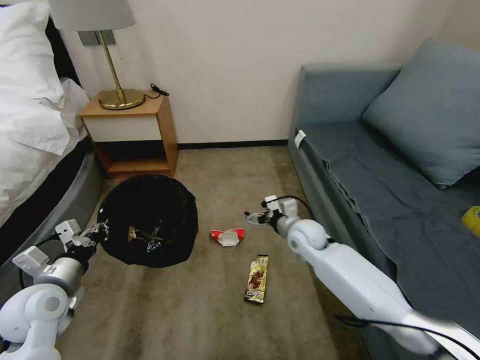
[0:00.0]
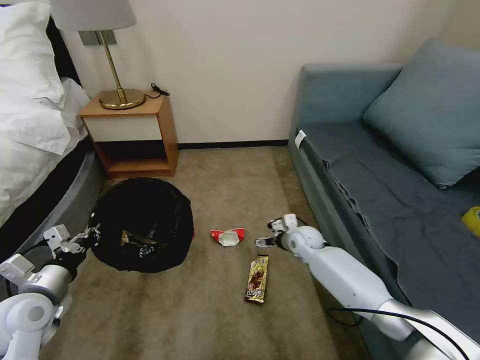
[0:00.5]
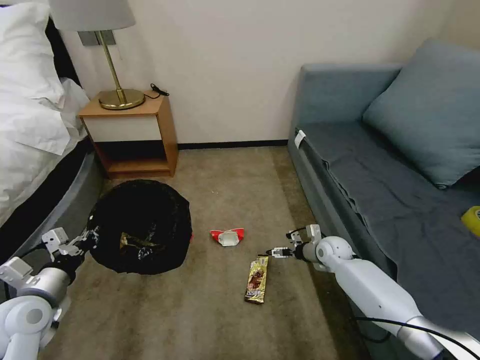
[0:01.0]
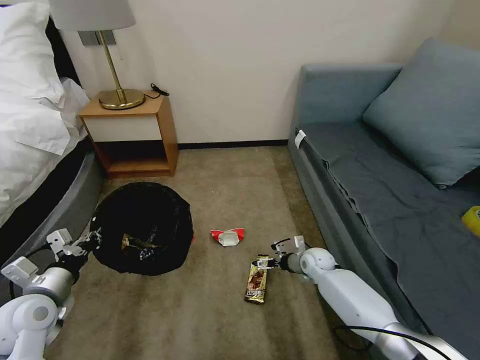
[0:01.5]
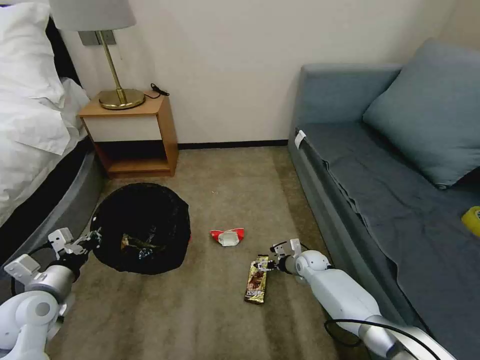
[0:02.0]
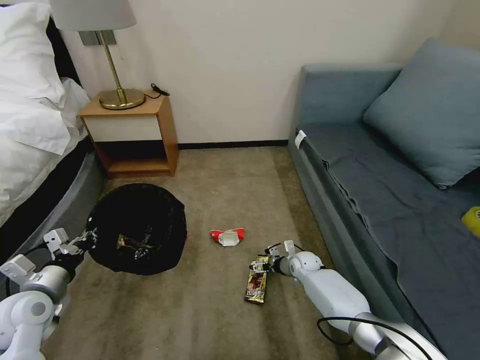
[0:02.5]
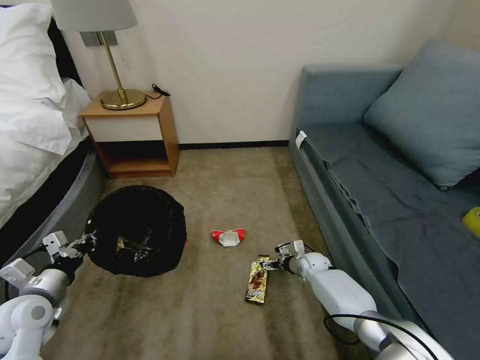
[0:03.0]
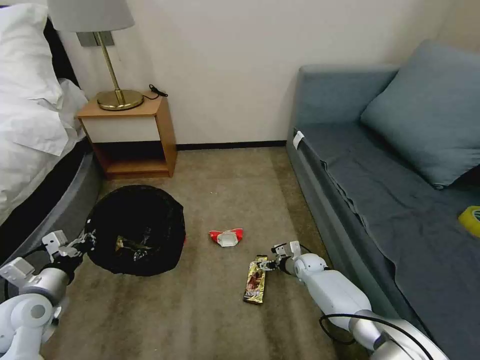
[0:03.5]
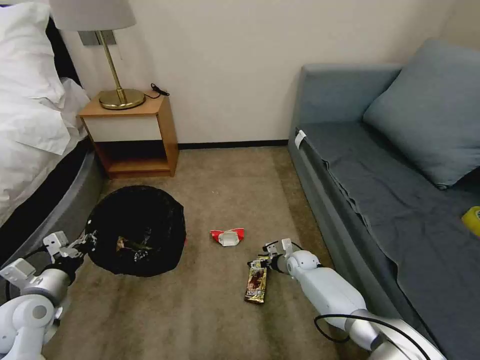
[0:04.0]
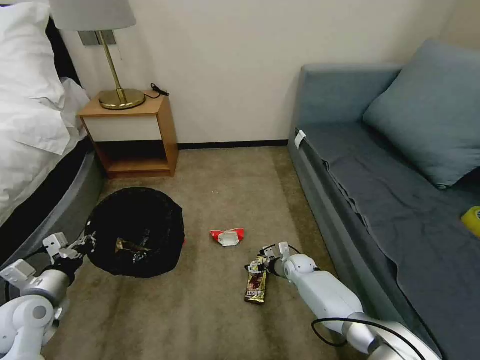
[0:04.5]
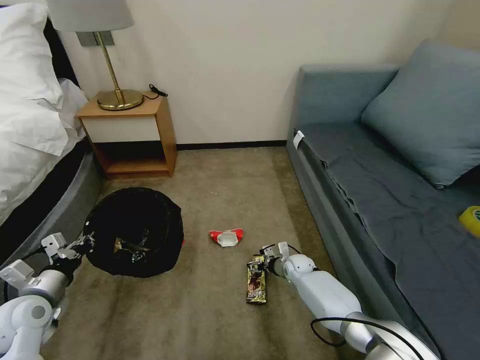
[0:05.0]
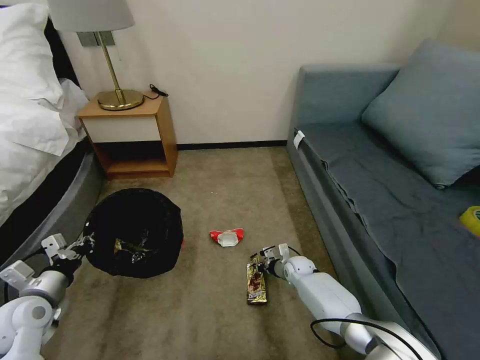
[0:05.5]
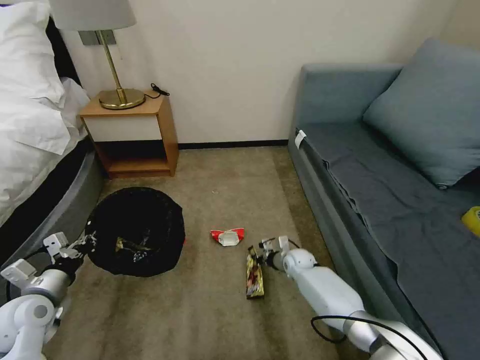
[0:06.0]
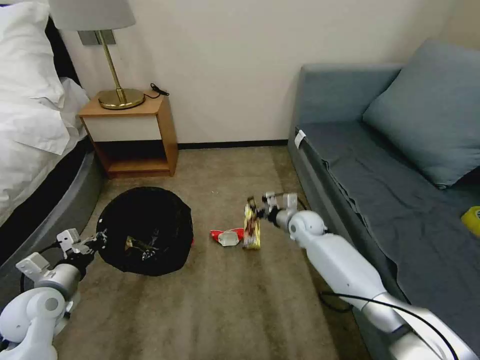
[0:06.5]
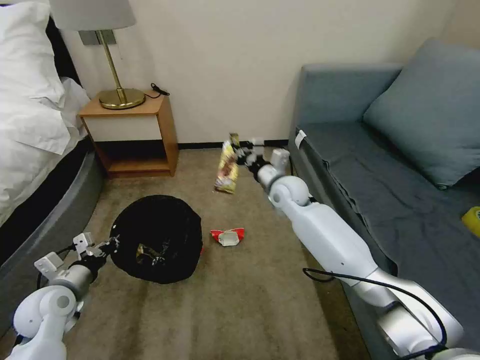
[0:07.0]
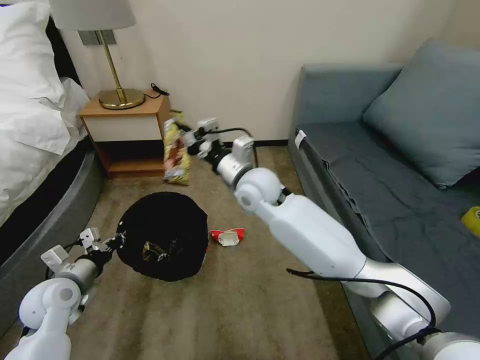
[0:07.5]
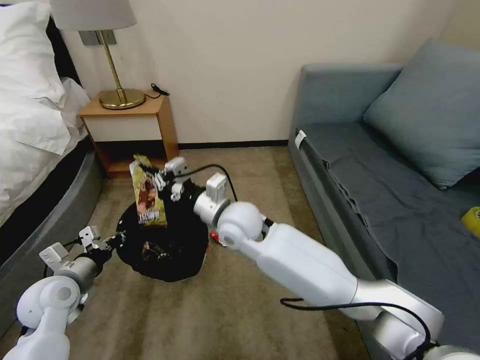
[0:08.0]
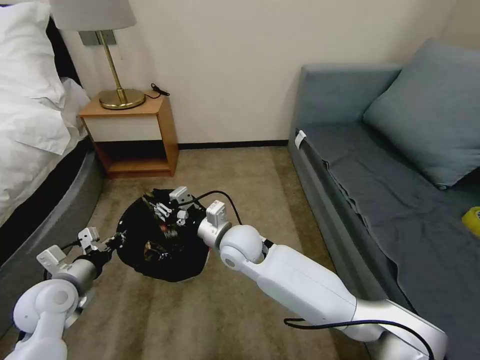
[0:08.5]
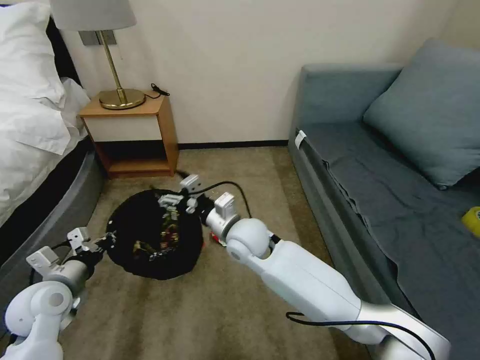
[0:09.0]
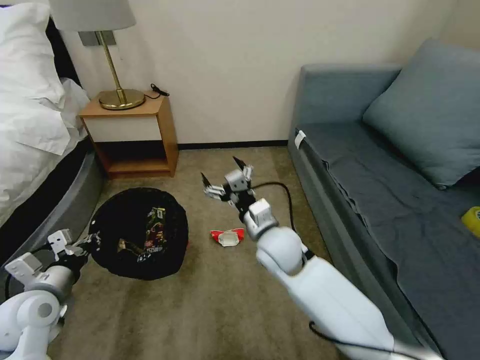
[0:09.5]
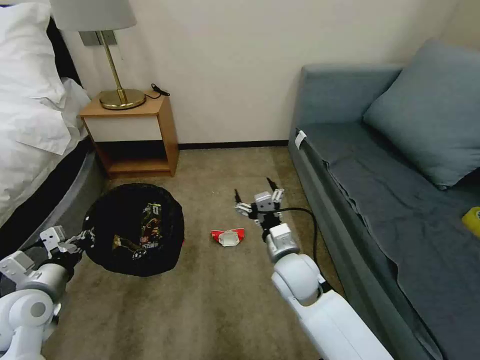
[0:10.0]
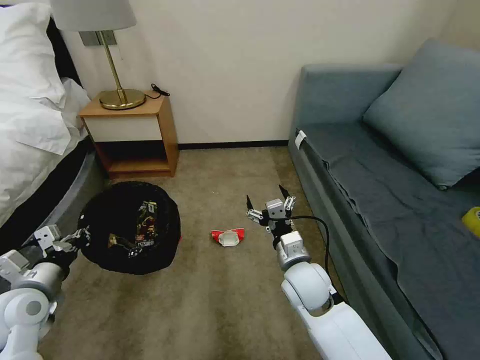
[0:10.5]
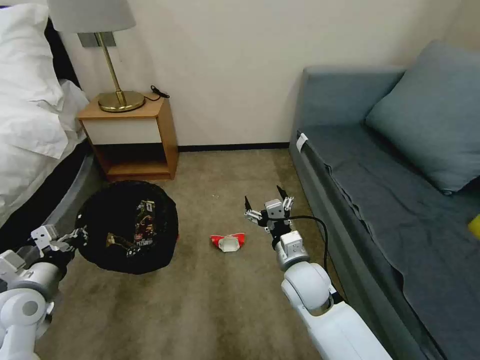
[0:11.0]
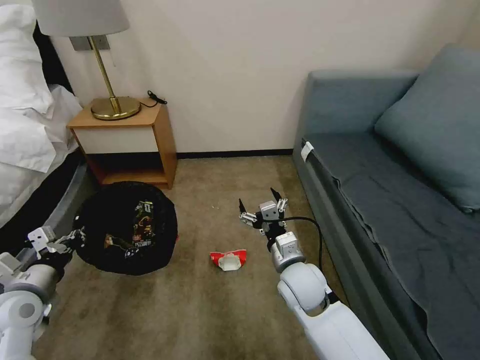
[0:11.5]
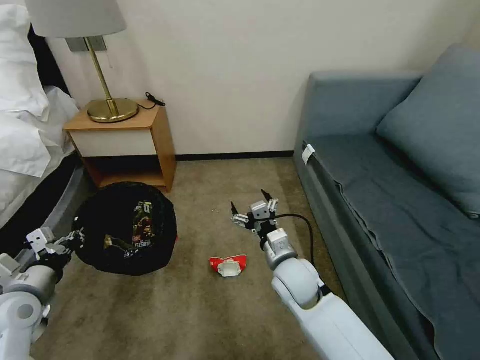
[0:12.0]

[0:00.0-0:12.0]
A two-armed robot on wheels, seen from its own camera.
Task of the whole recording: Pick up the trash bin, then pick up the garbage on the floor and place it into the trash bin.
0:00.0 to 0:02.0: The right gripper goes about 20 cm downward.
0:02.0 to 0:04.0: The grippers stay close to where they were, moving slightly.
0:04.0 to 0:06.0: The right gripper closes up.
0:06.0 to 0:08.0: The right gripper heads upward and to the left, covering about 35 cm, while the left gripper ends up approximately 5 cm from where it was.
0:08.0 to 0:10.0: The right gripper travels to the right, downward and backward by roughly 15 cm, and opens its fingers, while the left gripper changes place by approximately 5 cm.

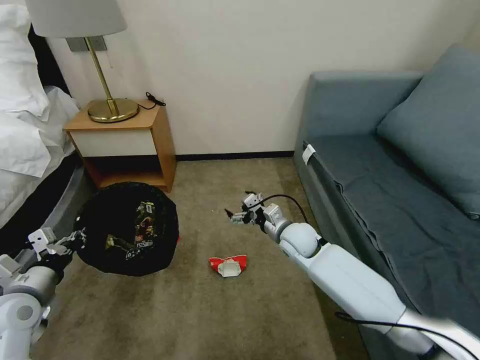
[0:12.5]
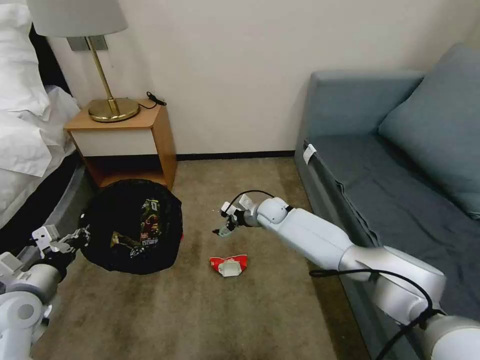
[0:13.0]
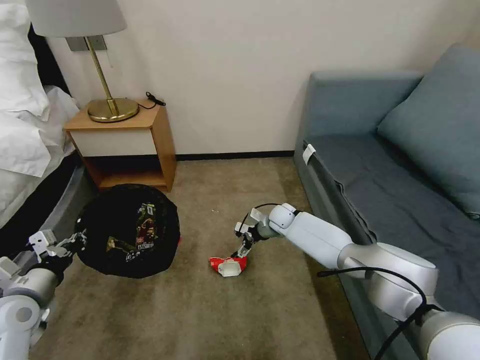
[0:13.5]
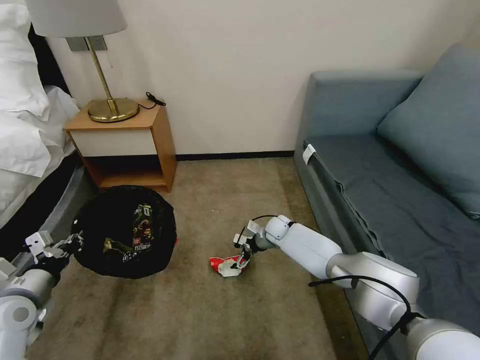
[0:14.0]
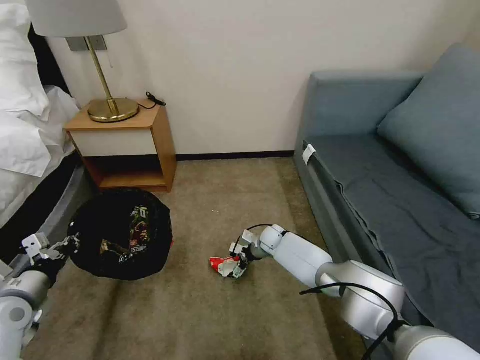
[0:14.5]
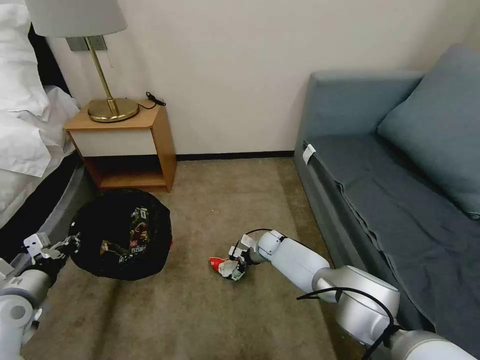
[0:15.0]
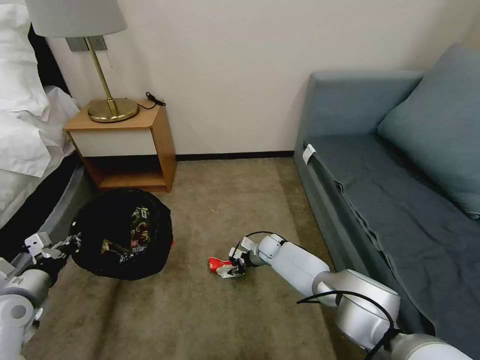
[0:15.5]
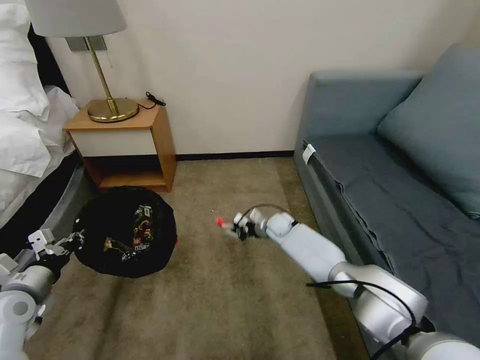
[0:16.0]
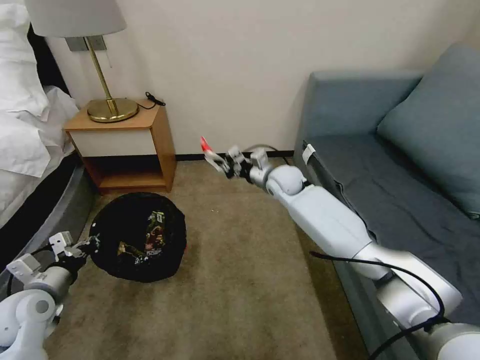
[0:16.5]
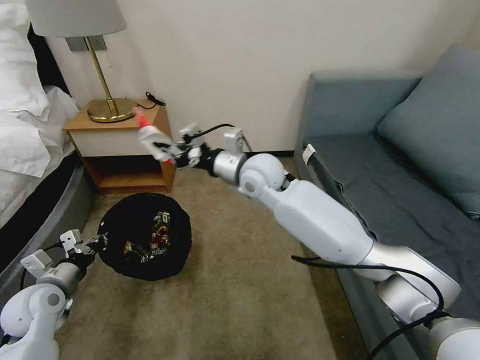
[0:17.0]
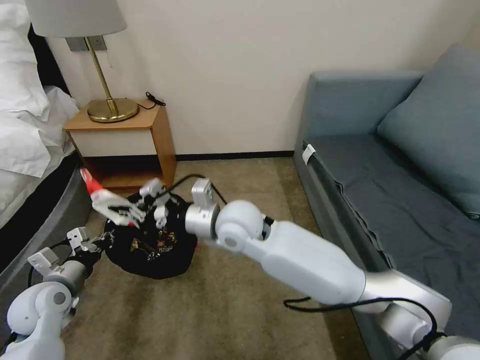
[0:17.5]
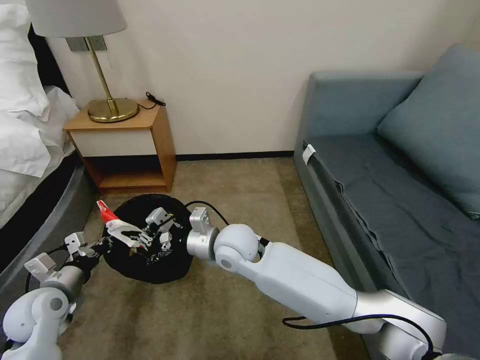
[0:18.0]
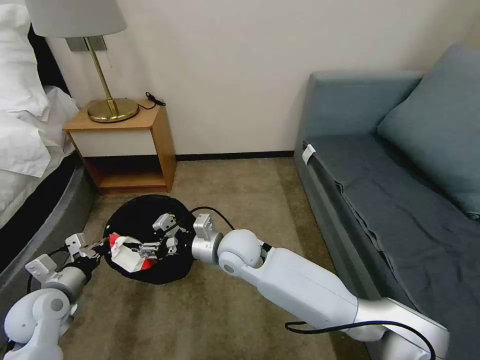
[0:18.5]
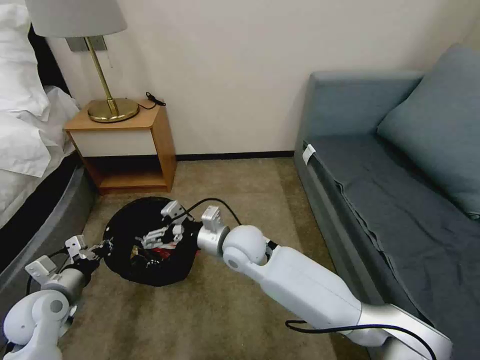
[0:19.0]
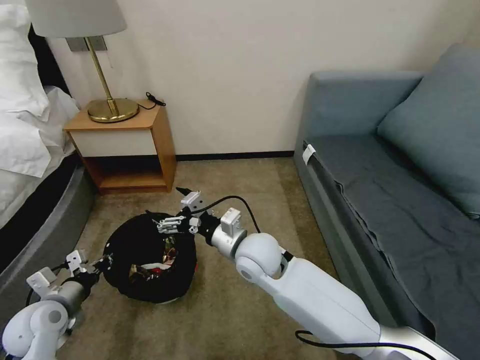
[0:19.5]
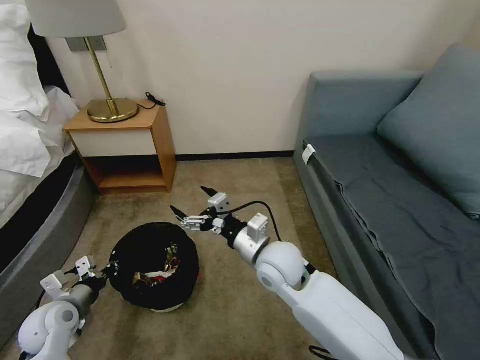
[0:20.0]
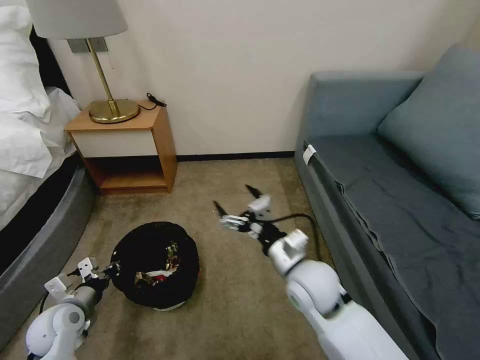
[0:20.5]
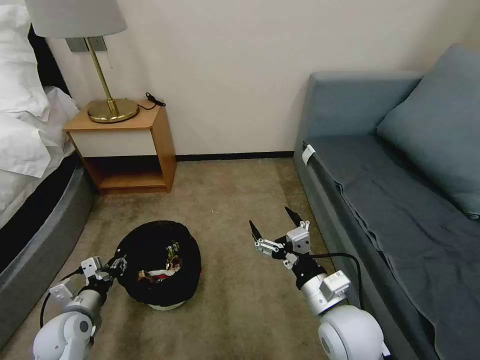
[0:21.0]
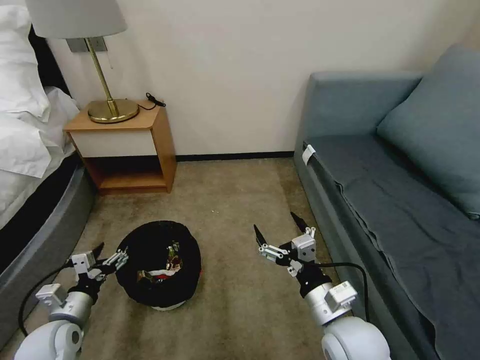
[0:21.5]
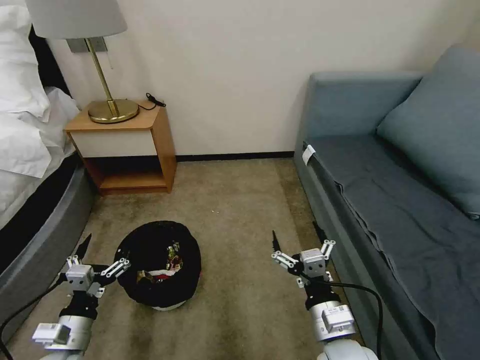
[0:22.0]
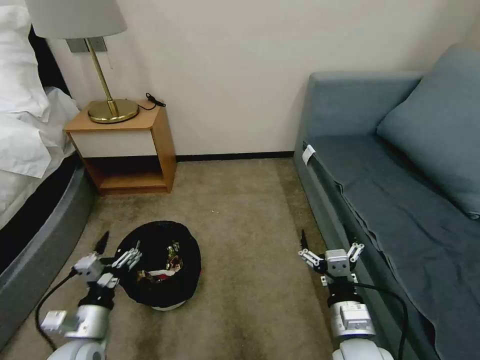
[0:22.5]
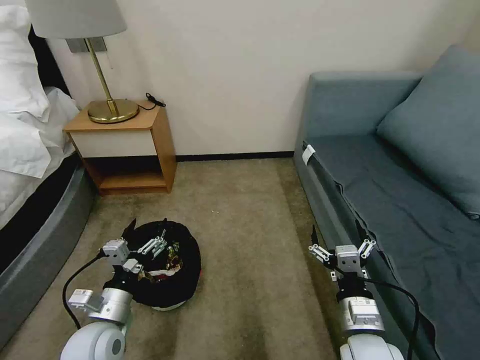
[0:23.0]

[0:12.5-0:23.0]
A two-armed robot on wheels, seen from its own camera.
Task of the whole recording: Pick up the trash bin, then pick up the garbage on the floor and place it into the trash bin.
0:12.5 to 0:14.5: The right gripper is displaced downward and forward by roughly 15 cm.
0:14.5 to 0:16.5: The right gripper heads upward, covering about 25 cm, and closes.
0:16.5 to 0:19.0: The right gripper is displaced backward and to the left by about 25 cm, and opens its fingers.
0:19.0 to 0:21.0: The left gripper shifts roughly 5 cm downward, and opens up. Meanwhile the right gripper heads to the right and backward, covering about 25 cm.
0:21.0 to 0:23.0: The right gripper shifts by roughly 5 cm. The left gripper is displaced to the right and upward by roughly 10 cm, and opens its fingers.

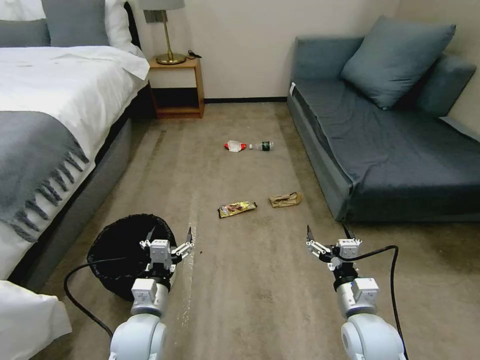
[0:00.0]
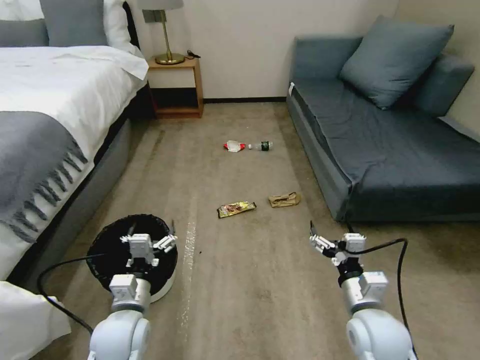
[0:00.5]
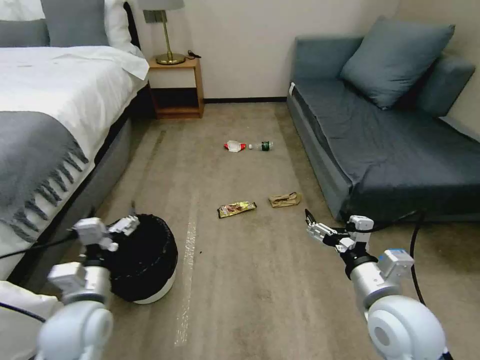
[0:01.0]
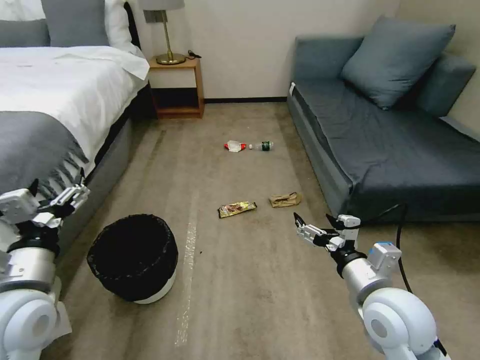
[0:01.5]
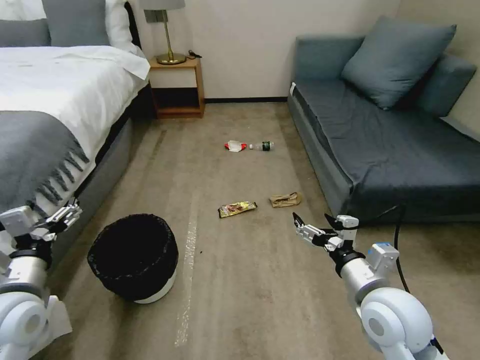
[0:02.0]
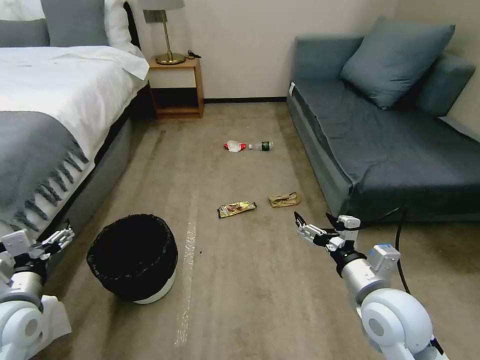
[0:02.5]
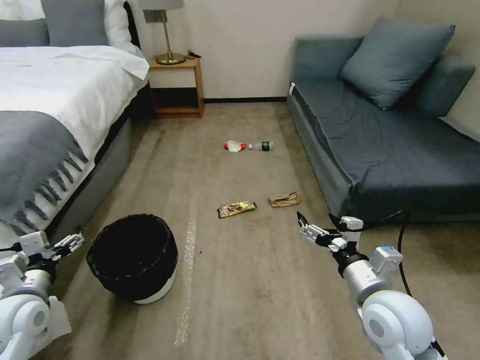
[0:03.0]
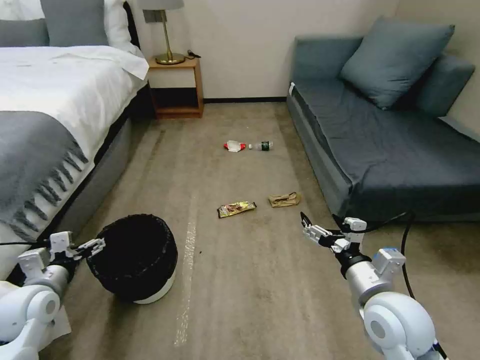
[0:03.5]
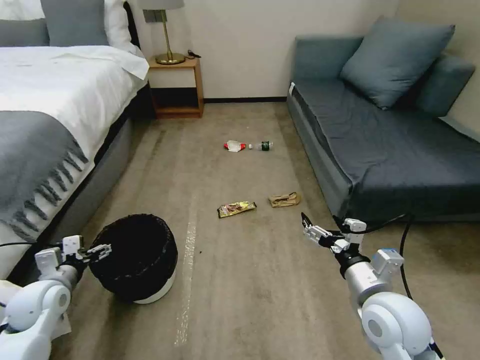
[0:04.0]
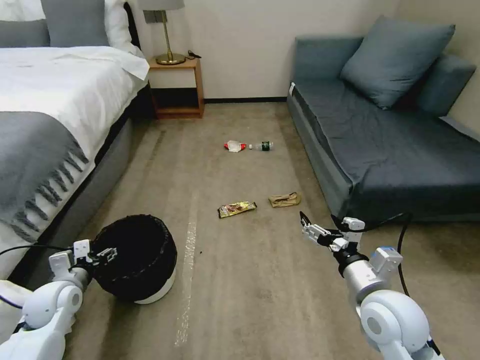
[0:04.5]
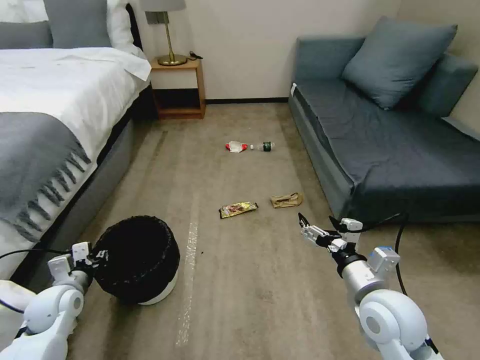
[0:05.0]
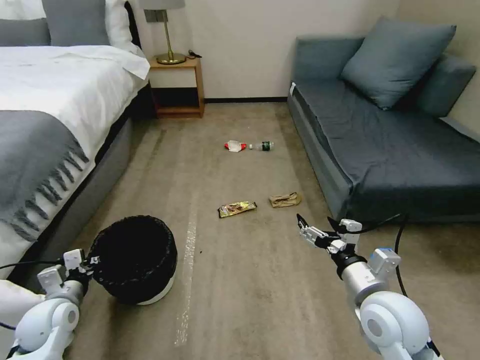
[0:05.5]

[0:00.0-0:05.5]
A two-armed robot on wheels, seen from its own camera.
Task of the whole recording: Pick up the trash bin, then pick up the garbage on the floor and place it into the trash bin.
0:02.0 to 0:03.5: The left gripper travels downward and to the left by some 10 cm.
0:03.5 to 0:05.5: The left gripper is displaced downward by about 5 cm, and closes up.
